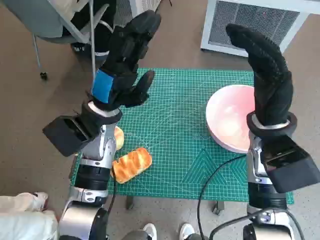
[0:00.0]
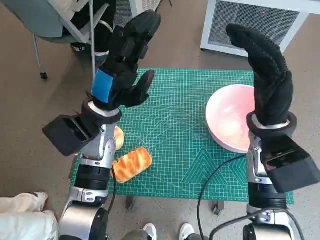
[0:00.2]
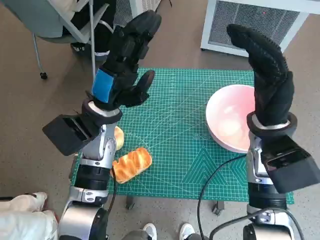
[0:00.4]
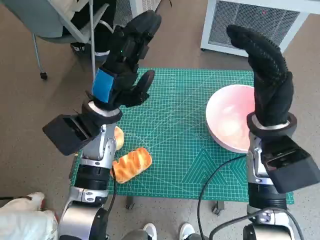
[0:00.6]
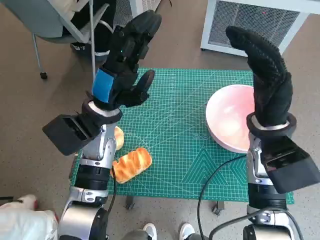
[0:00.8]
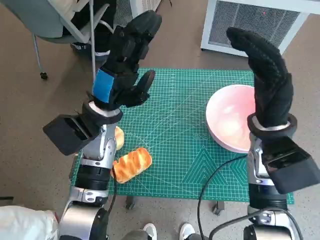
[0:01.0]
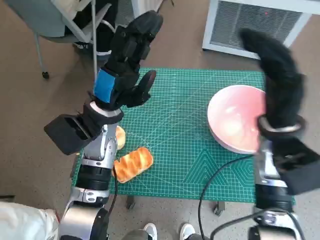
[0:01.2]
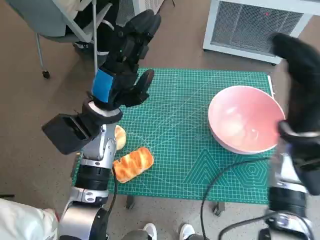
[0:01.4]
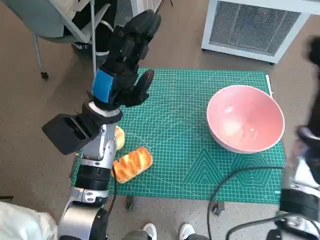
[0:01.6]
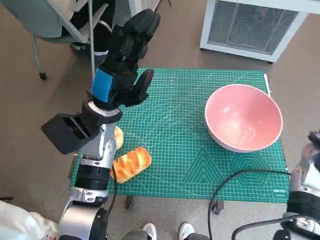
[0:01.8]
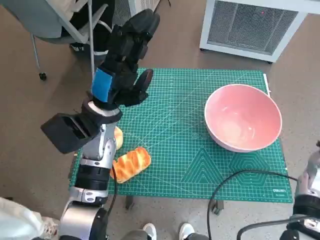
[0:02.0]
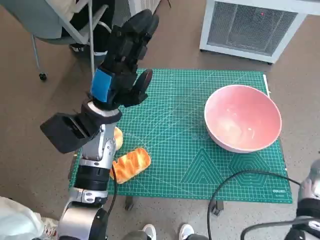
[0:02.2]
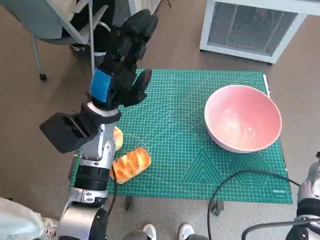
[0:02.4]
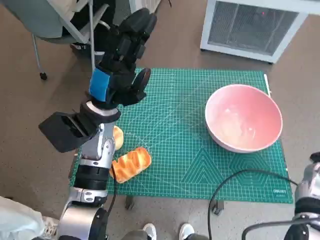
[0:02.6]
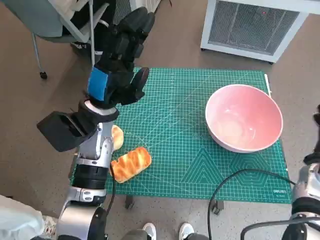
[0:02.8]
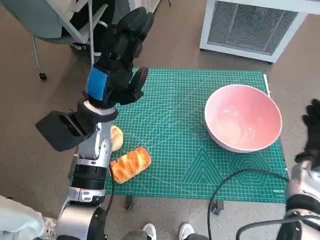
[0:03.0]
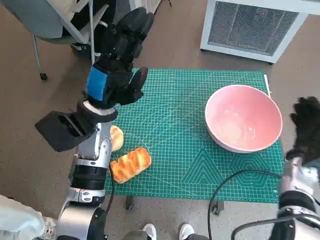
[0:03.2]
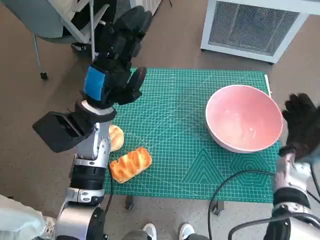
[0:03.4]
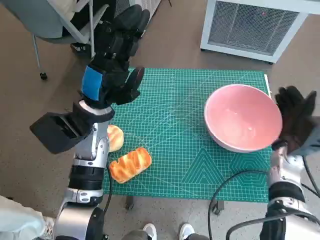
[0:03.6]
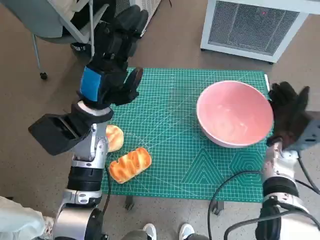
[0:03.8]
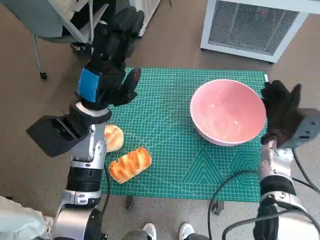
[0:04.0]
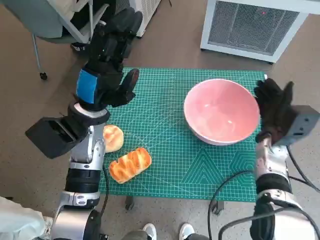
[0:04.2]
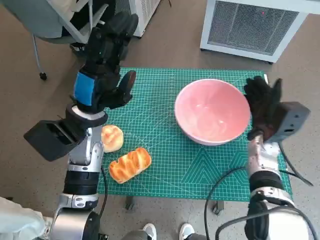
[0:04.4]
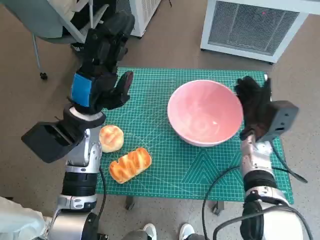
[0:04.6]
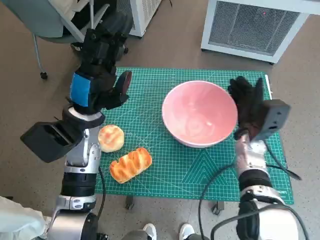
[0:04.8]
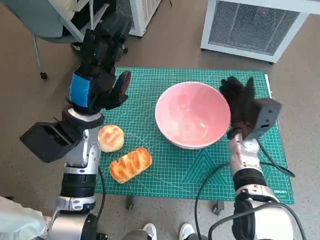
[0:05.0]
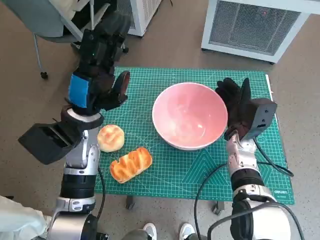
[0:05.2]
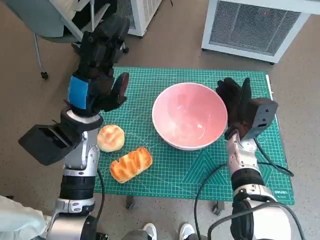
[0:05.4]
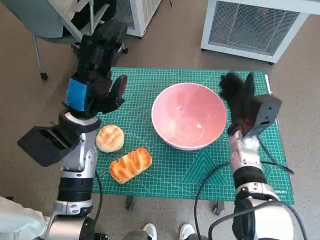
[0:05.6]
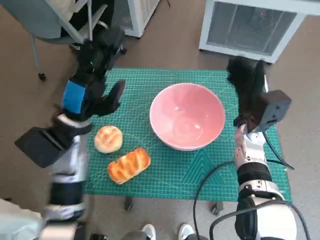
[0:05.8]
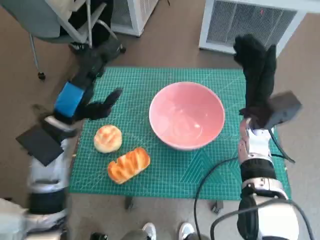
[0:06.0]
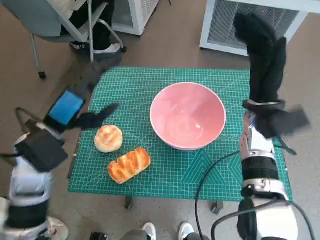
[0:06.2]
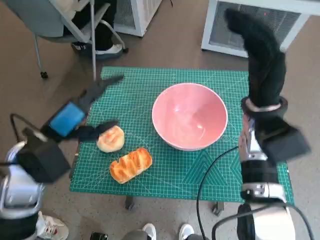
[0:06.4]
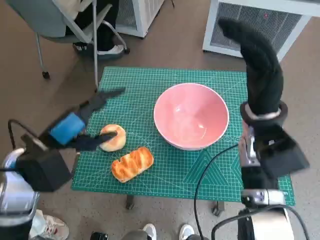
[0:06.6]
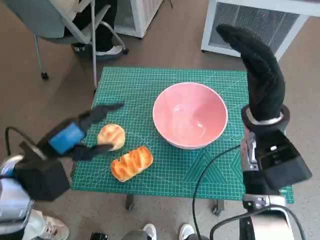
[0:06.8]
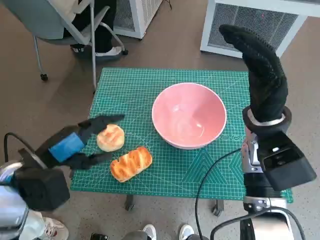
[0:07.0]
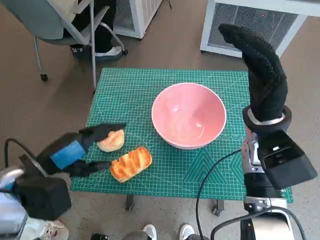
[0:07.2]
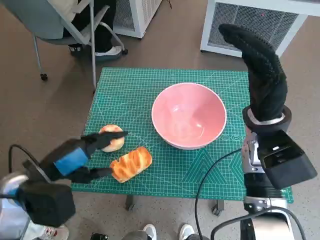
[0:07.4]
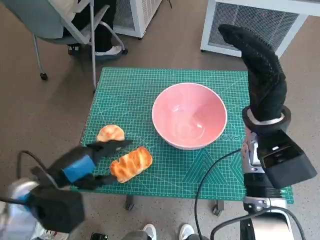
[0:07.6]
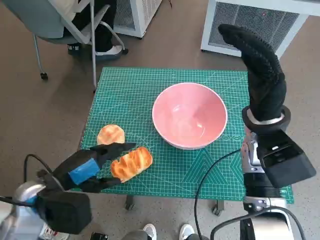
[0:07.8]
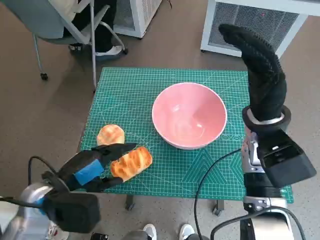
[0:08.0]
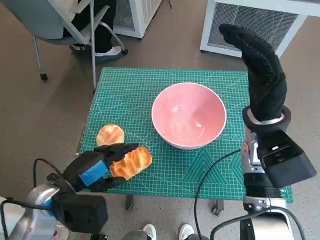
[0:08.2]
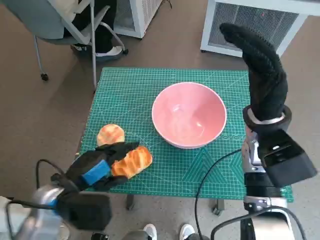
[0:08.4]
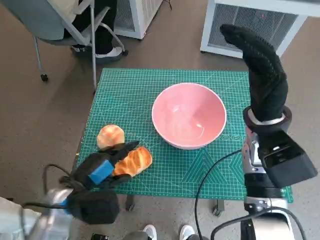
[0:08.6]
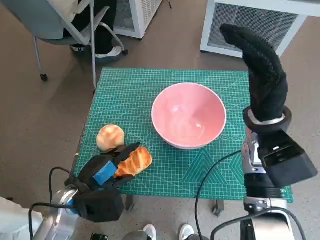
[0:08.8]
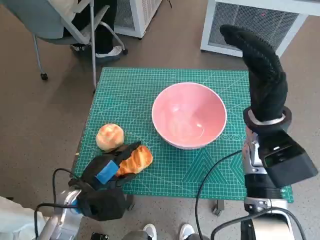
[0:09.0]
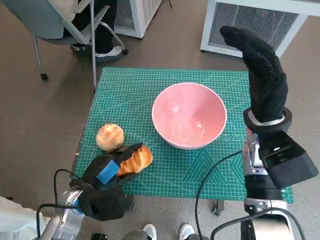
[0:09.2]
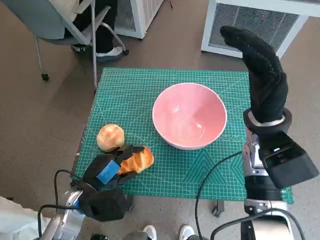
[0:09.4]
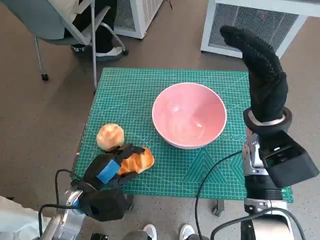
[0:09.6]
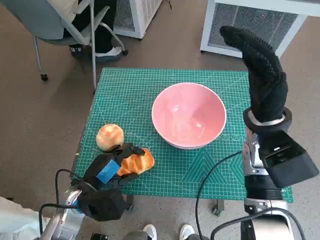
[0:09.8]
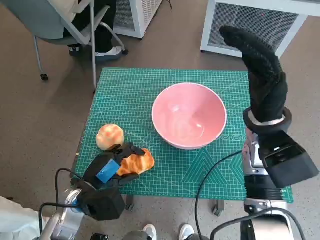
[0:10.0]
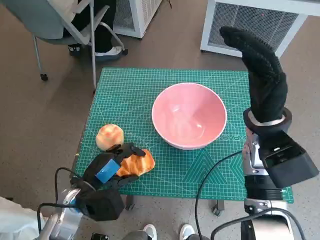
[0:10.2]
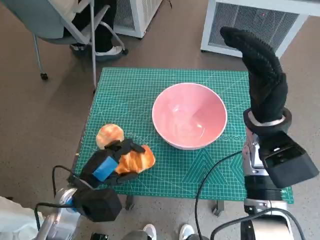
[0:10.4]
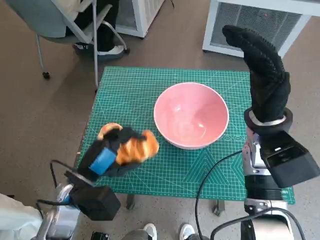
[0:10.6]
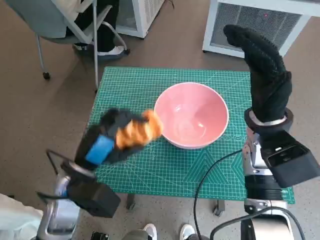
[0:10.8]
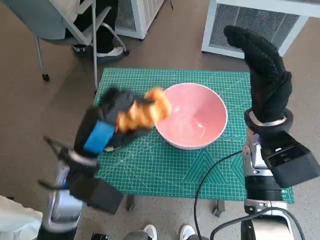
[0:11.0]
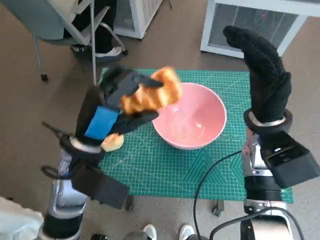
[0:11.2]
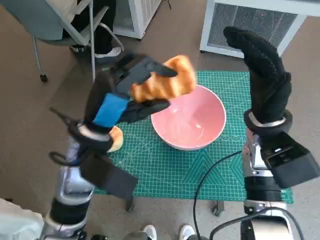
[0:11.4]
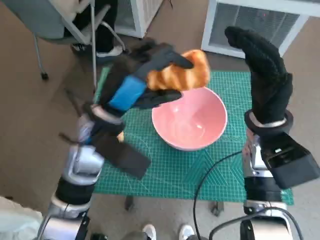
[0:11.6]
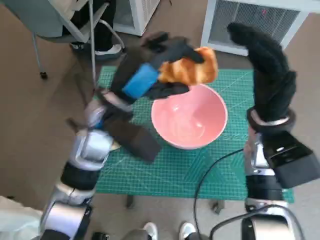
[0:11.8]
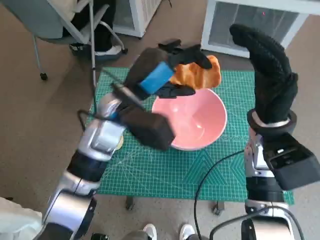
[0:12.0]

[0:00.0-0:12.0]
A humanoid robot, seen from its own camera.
Task of the whole recording: Push the bowl to the center of the table and put the bread into the bowl.
Step, 0:00.0 to 0:05.8: Move the pink bowl to the center of table with right hand.
Step, 0:06.0 to 0:09.2: Grasp the long bread with left hand.
0:01.6 to 0:03.0: The right hand heads downward and to the right, covering about 10 cm.
0:03.0 to 0:04.4: The right hand moves to the left, about 10 cm.
0:04.4 to 0:06.0: The right hand shifts roughly 5 cm upward. The left hand changes place by some 5 cm.
0:06.0 to 0:07.6: The left hand heads backward, covering approximately 10 cm. The right hand heads upward, covering some 5 cm.
0:07.6 to 0:09.0: The left hand travels downward by about 10 cm.
0:09.0 to 0:10.4: The hands make only small movements.
0:10.4 to 0:12.0: The left hand goes some 20 cm upward, forward and to the right.

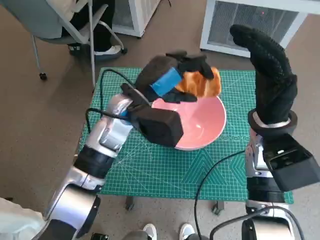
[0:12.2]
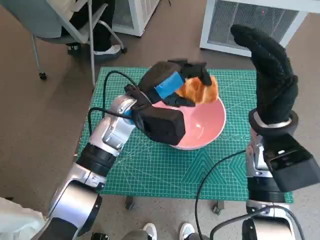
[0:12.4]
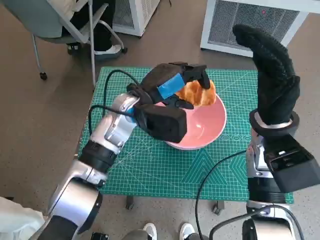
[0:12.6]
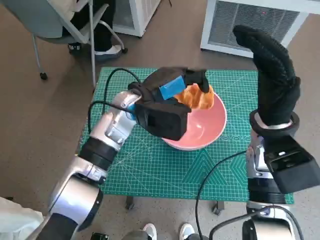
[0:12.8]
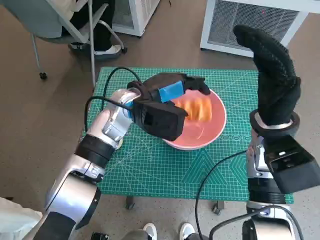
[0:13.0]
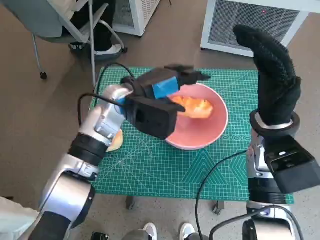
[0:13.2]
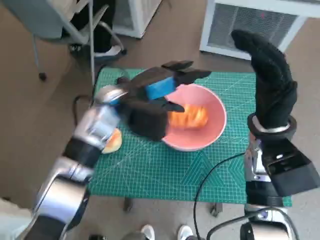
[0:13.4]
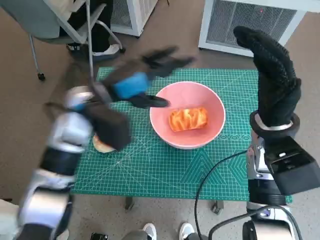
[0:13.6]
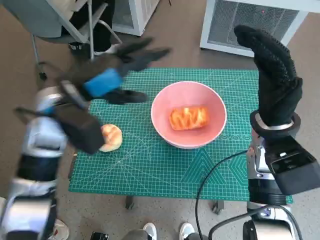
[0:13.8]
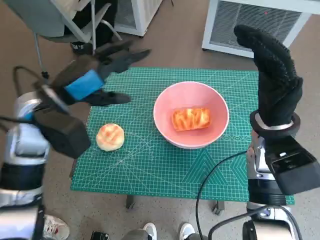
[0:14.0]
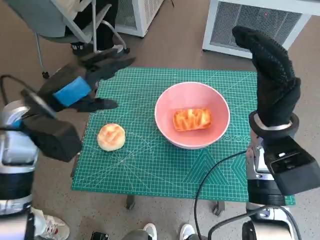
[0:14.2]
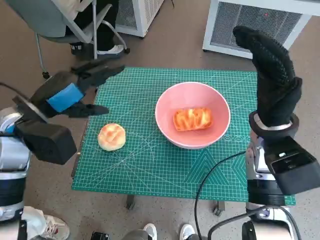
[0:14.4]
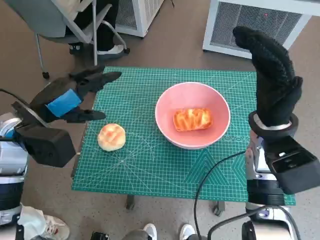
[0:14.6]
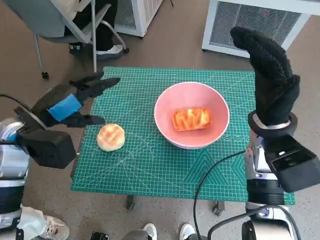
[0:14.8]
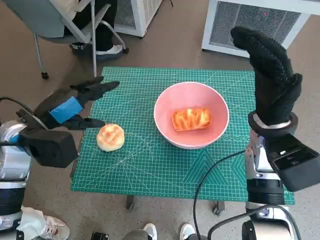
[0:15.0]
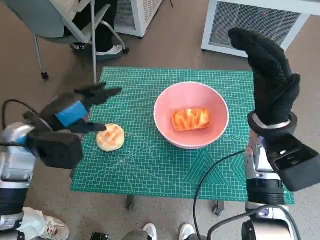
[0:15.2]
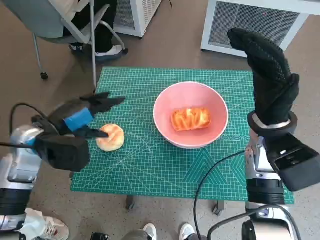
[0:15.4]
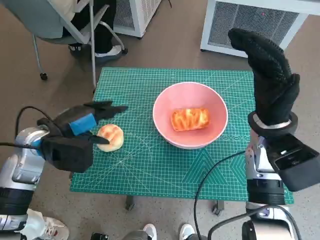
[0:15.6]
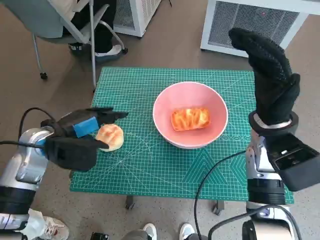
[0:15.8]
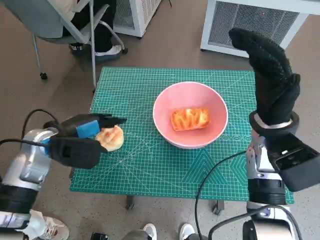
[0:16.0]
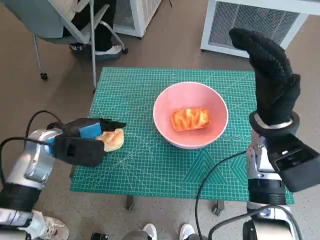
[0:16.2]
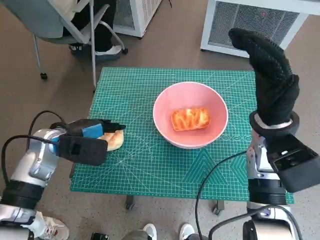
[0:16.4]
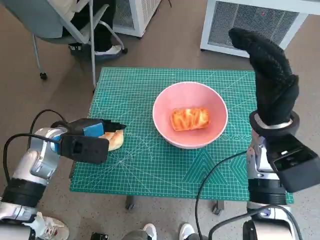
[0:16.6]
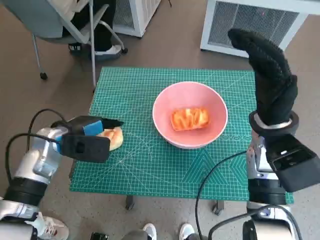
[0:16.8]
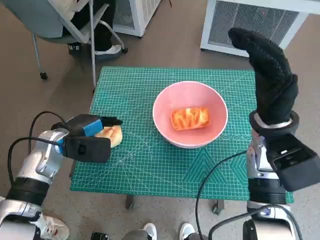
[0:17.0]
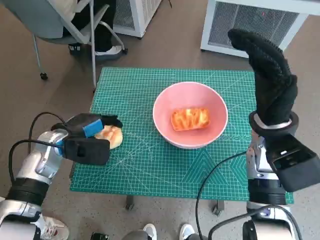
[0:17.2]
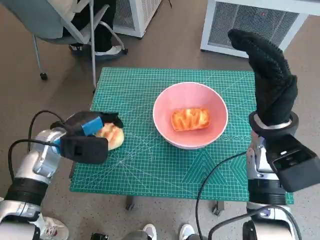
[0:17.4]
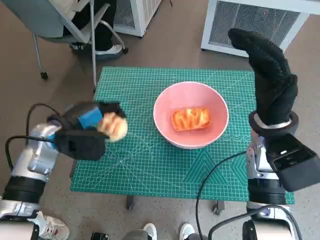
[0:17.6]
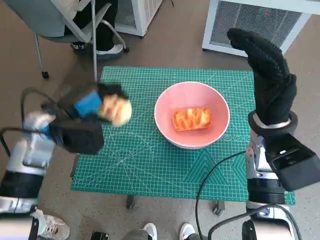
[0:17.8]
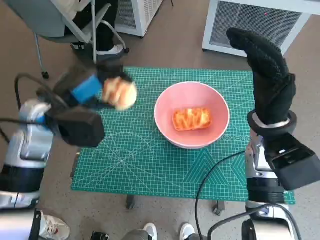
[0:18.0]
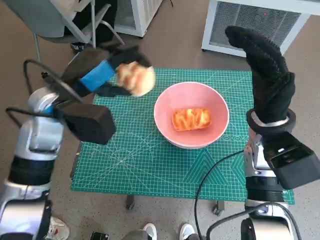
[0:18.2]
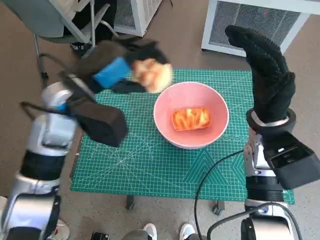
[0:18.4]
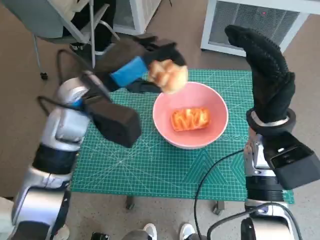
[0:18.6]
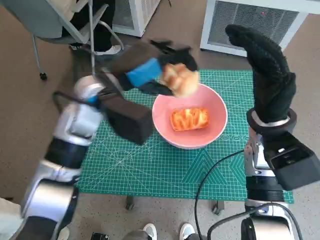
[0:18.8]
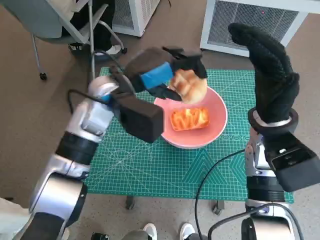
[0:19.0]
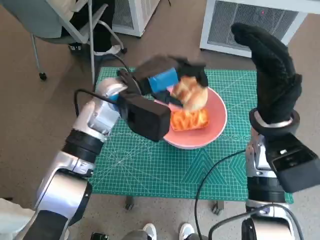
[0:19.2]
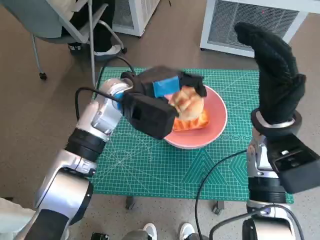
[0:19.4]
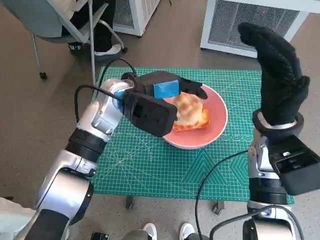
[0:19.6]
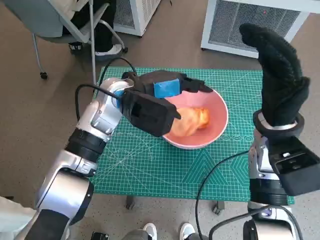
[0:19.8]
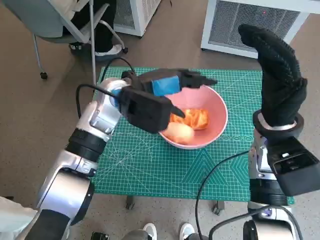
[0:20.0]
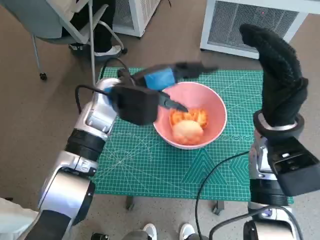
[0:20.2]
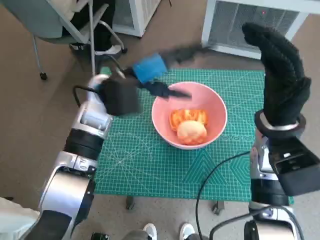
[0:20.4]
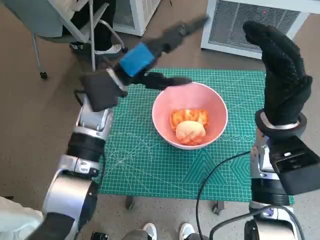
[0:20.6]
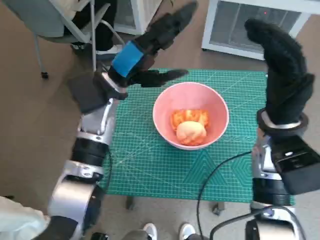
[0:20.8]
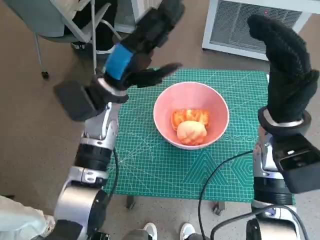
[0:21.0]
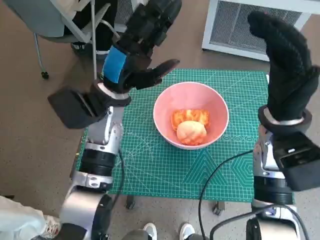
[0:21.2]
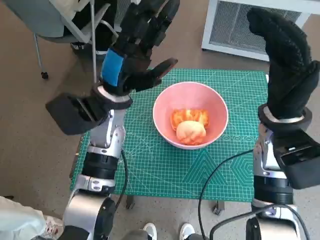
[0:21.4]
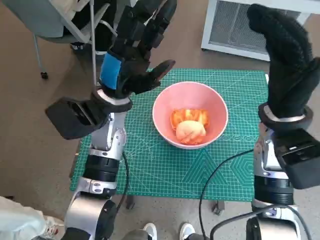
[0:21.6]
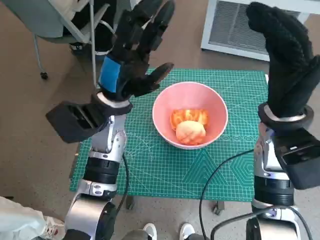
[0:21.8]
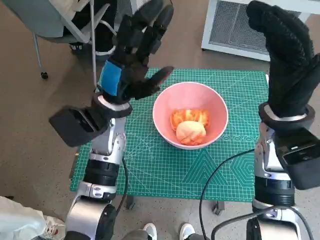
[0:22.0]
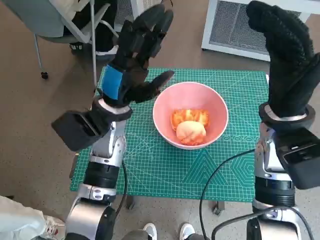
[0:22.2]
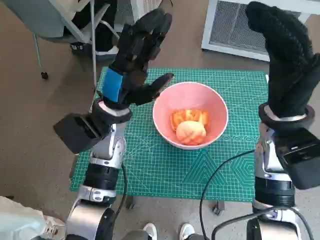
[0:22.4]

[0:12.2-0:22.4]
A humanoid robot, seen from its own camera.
Task of the whole recording: Push the bowl to the center of the table and put the bread into the bowl.
Step, 0:13.6 to 0:17.0: Grasp the round bread with left hand.
Step, 0:17.2 to 0:20.6: Place the round bread in pink bowl with left hand.
0:12.2 to 0:13.6: The left hand is displaced to the left by roughly 5 cm.
0:13.6 to 0:15.2: The left hand shifts approximately 15 cm to the left and backward.
0:15.2 to 0:16.6: The left hand shifts roughly 5 cm downward.
0:16.6 to 0:18.0: The left hand goes about 10 cm upward.
0:18.0 to 0:19.4: The left hand is displaced to the right by roughly 10 cm.
